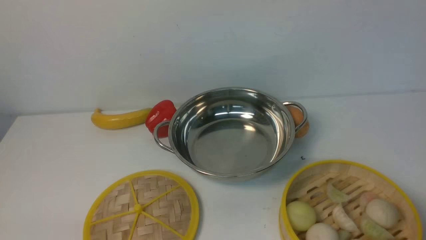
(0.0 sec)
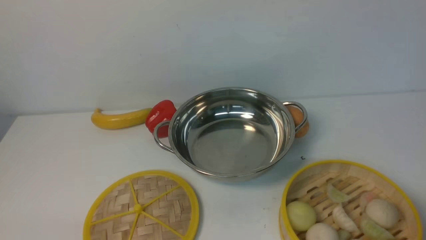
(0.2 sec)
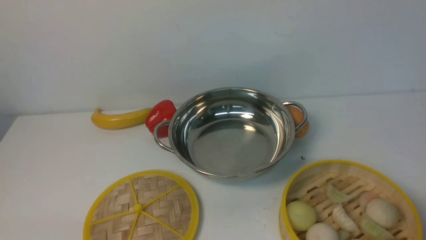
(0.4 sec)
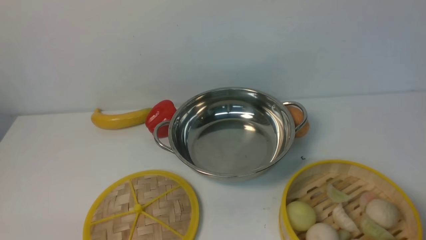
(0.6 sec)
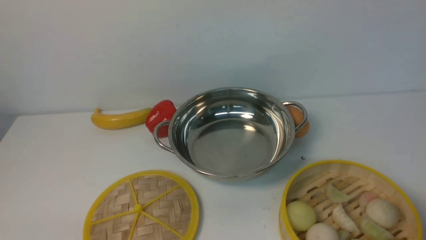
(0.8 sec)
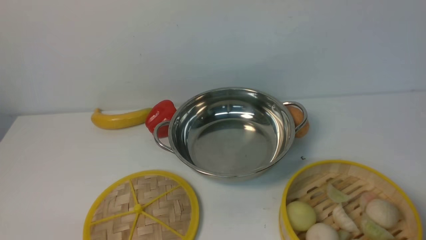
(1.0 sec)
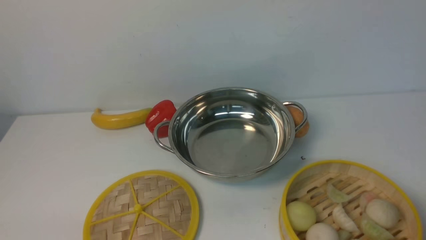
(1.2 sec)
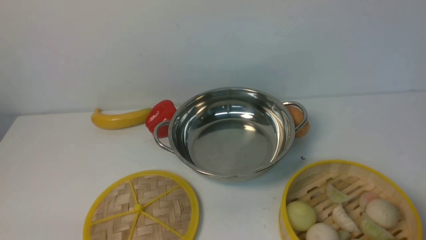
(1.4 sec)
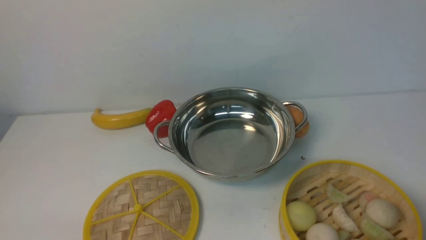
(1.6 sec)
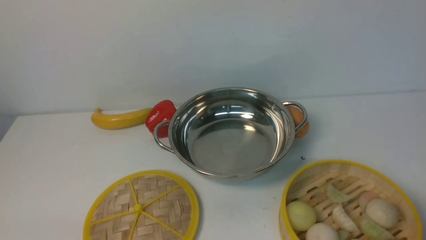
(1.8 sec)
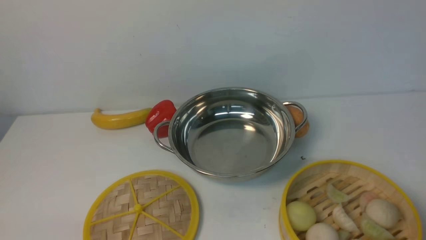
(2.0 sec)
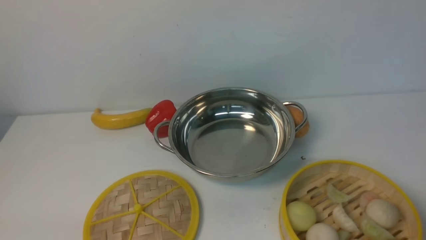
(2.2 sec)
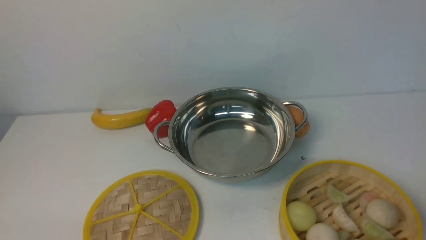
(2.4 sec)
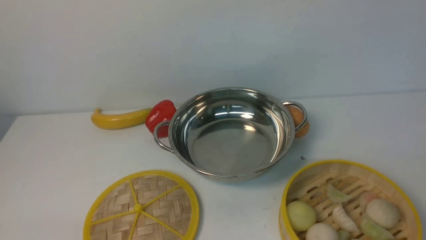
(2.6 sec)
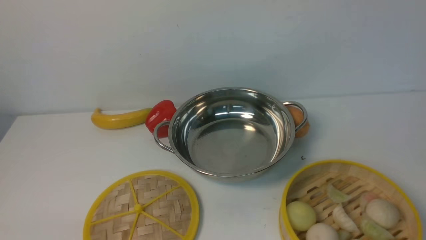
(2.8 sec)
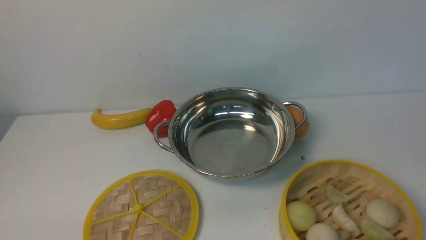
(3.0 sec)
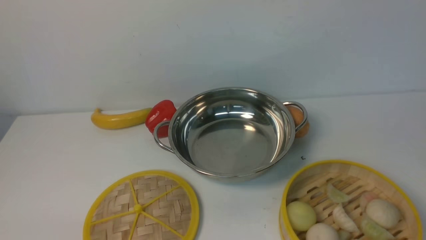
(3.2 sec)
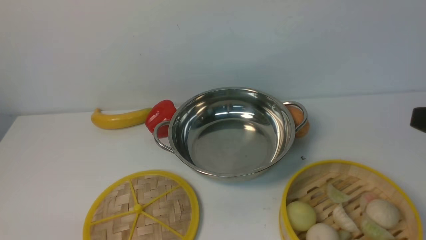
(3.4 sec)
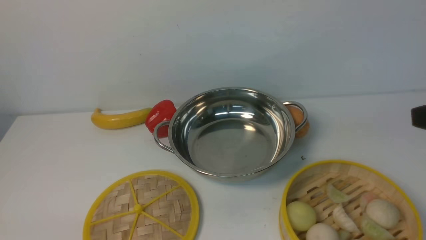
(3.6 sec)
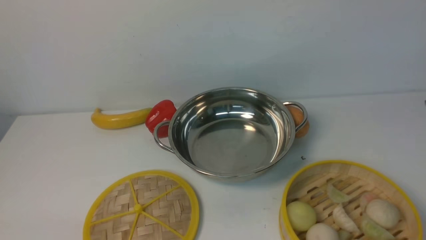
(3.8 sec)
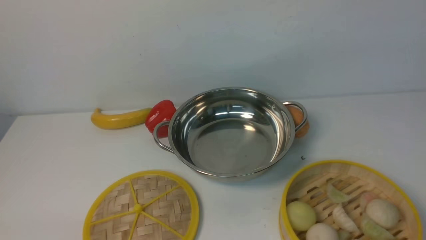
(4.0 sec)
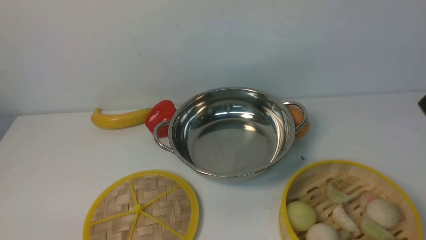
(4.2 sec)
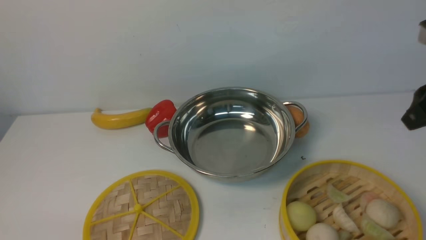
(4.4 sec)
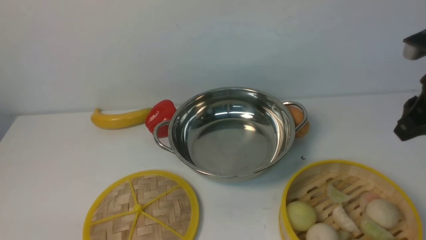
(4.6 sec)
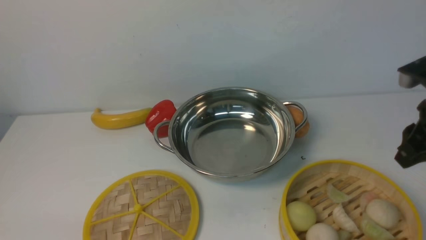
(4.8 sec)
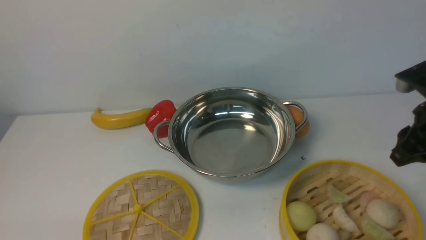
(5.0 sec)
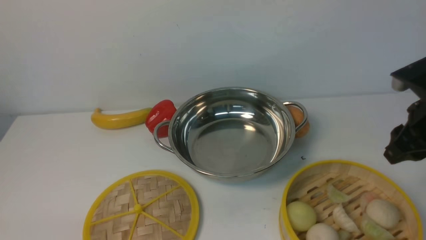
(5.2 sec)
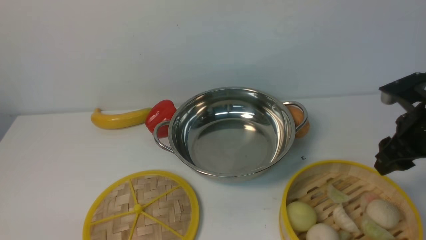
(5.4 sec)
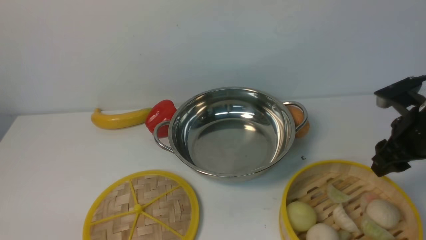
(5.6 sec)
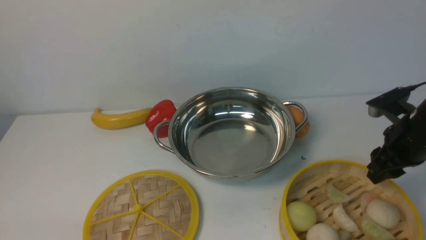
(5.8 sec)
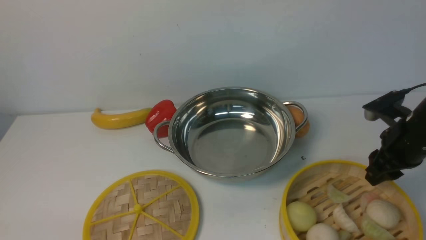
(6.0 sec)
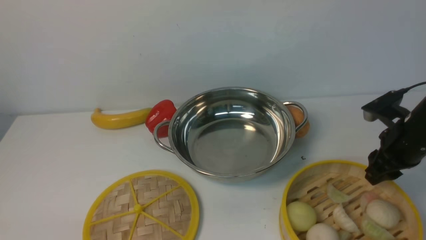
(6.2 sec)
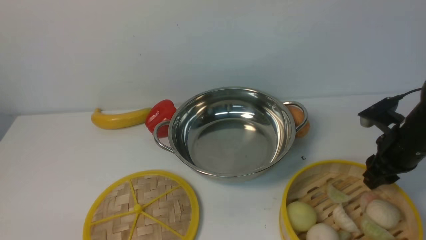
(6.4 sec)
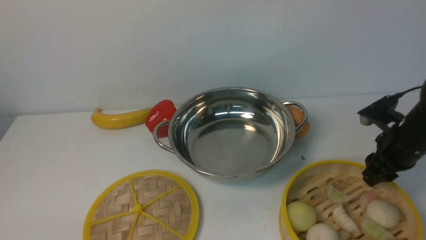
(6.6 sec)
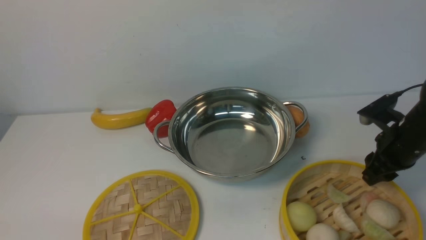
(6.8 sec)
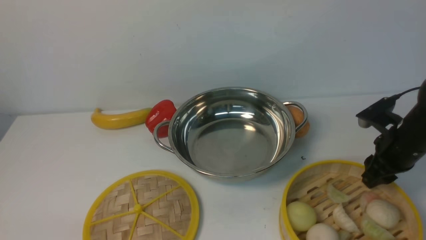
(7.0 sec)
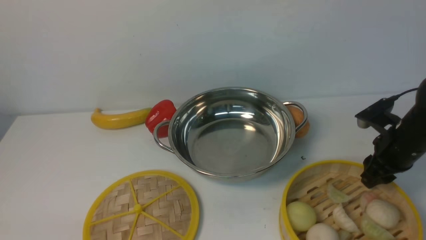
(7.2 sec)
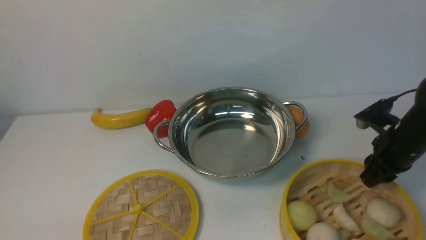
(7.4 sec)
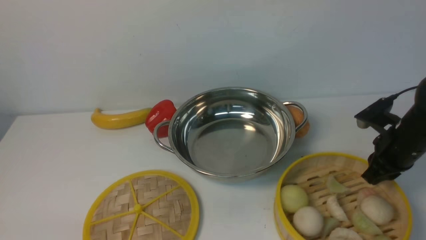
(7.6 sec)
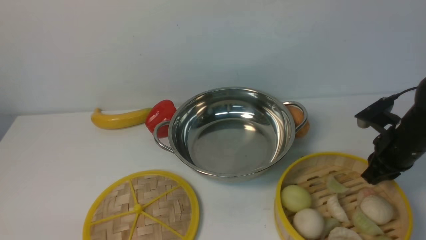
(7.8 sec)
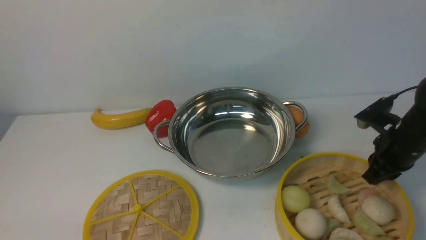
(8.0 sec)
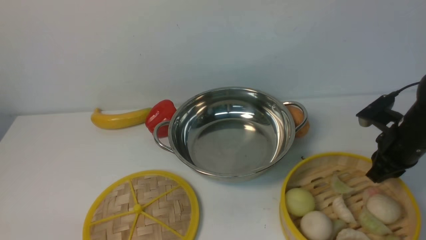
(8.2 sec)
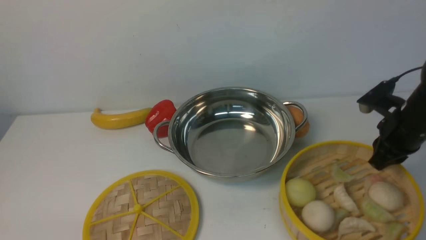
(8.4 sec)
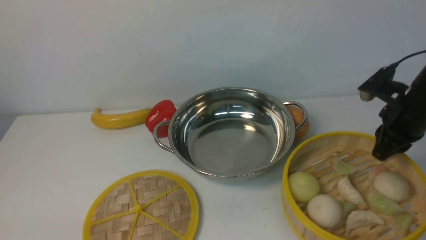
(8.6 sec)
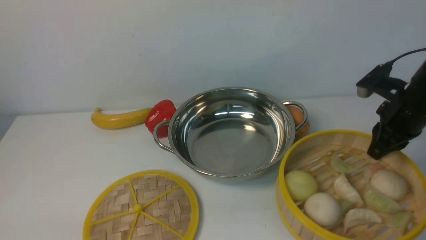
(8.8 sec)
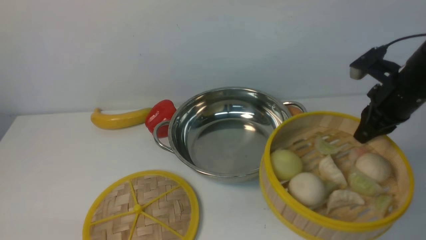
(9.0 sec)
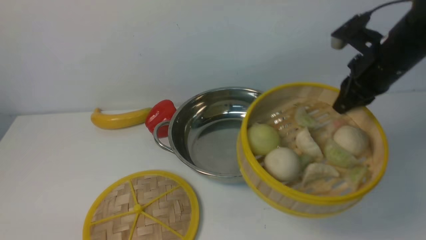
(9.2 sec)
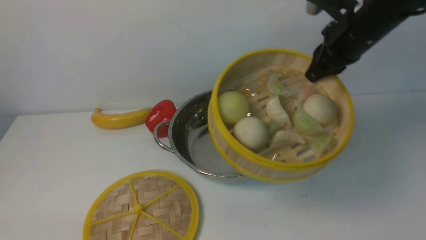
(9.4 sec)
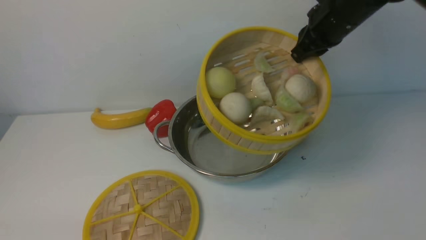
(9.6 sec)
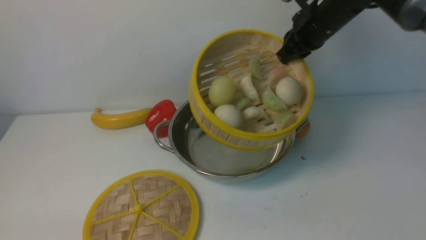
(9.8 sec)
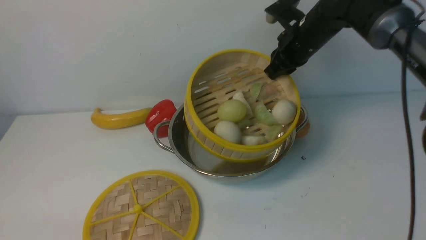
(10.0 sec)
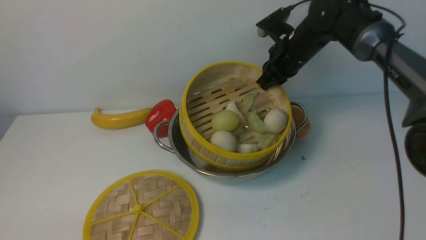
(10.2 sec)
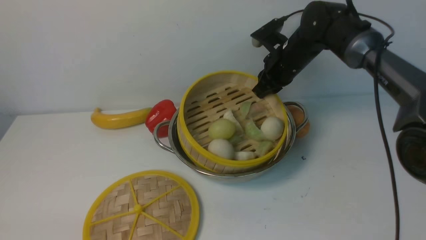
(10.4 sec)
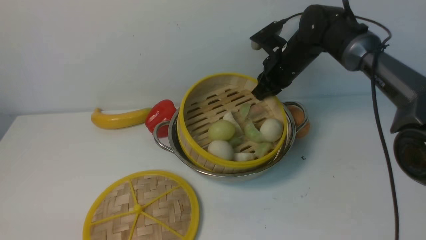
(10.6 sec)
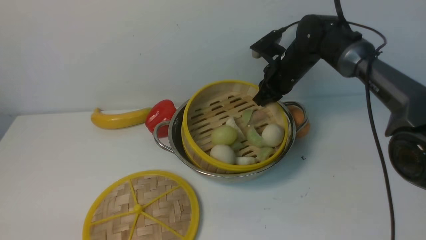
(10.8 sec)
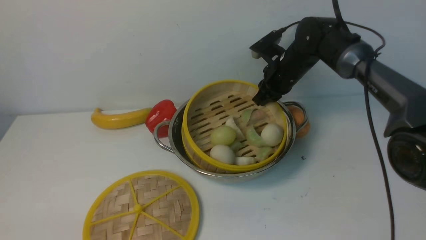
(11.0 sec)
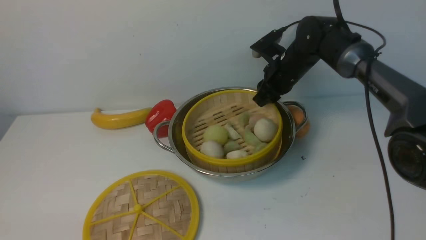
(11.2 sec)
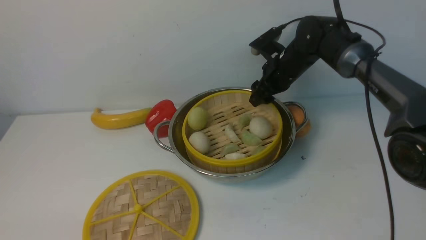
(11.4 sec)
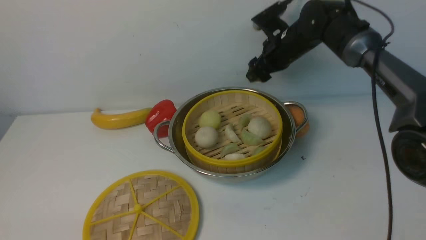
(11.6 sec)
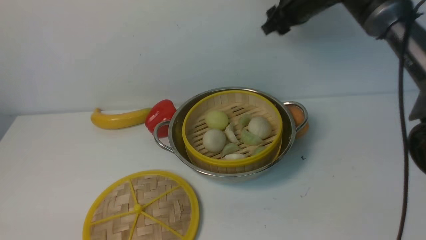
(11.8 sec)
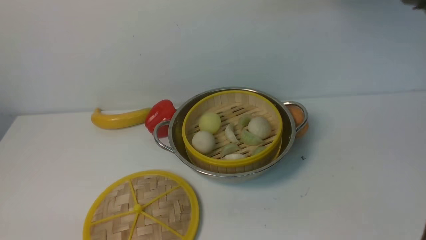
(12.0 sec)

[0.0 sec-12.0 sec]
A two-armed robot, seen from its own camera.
Task of the whole recording: place the steamer in the pot on the white table, and put the lid on the steamer.
Step, 0.0 sec to 8.4 sec: use the right arm to lift the steamer closest to it.
Step, 8.6 sec to 11.4 sec: use the right arm to put the steamer into the iron steamer pot in the middle.
0.0 sec to 1.6 sec: Neither gripper changes place.
3.0 sec to 4.4 sec: The right gripper heads forward, covering roughly 20 cm.
4.4 sec to 6.0 sec: The right gripper shifts some 15 cm downward.
6.0 sec to 7.6 sec: The right gripper closes its fingers.
7.6 sec to 9.0 sec: The right gripper goes roughly 10 cm upward.
9.0 sec to 10.4 sec: The right gripper is displaced to the left and forward by about 20 cm.
10.4 sec to 12.0 sec: The right gripper travels upward by roughly 20 cm, and opens and closes again.

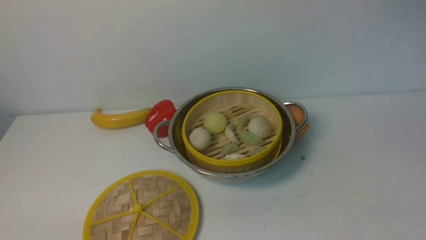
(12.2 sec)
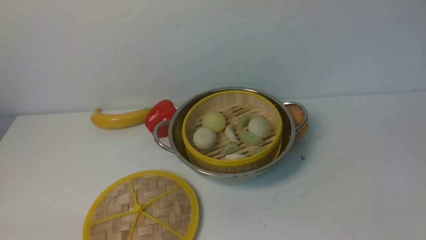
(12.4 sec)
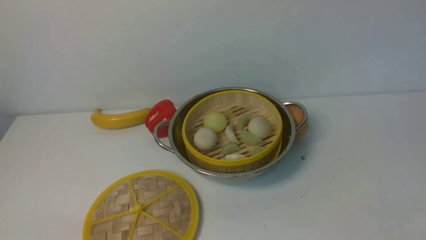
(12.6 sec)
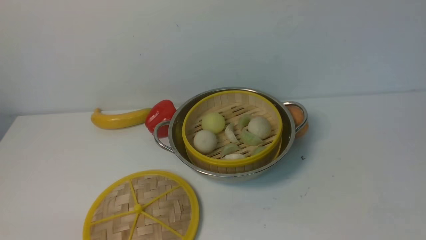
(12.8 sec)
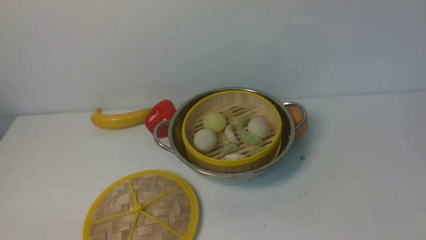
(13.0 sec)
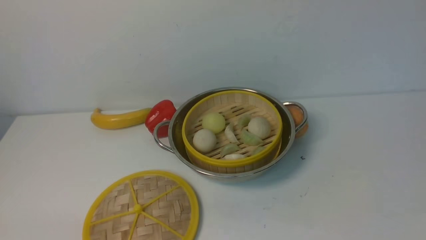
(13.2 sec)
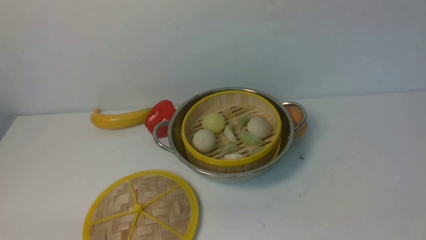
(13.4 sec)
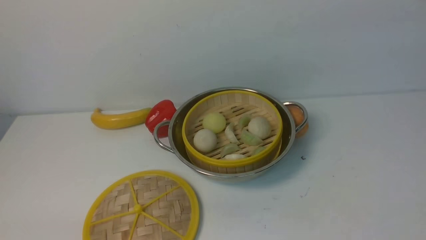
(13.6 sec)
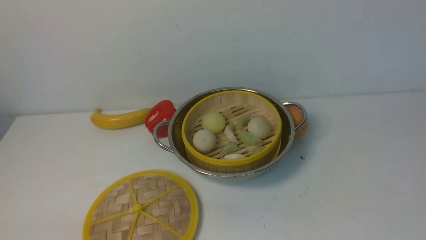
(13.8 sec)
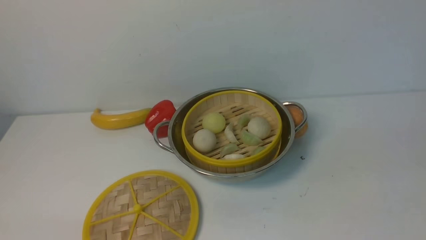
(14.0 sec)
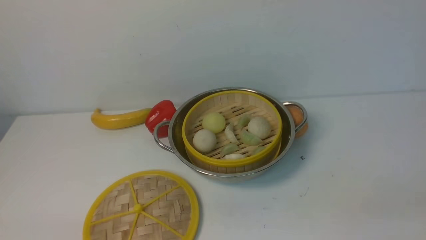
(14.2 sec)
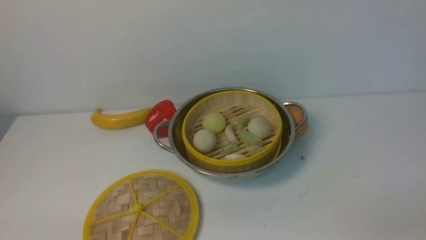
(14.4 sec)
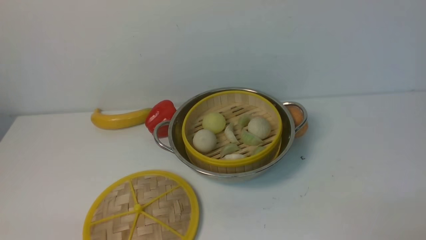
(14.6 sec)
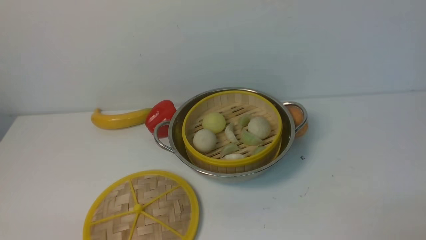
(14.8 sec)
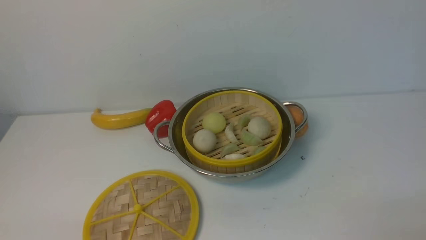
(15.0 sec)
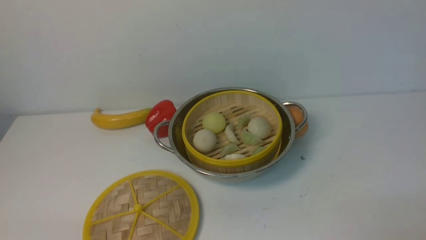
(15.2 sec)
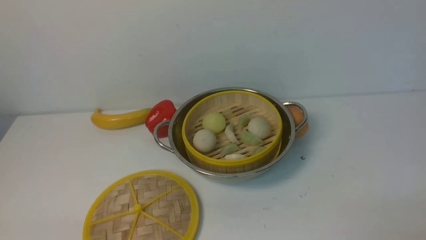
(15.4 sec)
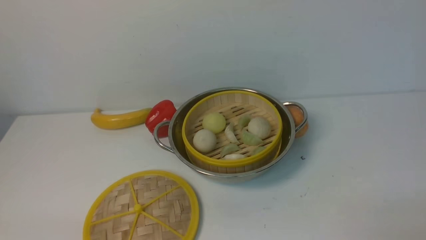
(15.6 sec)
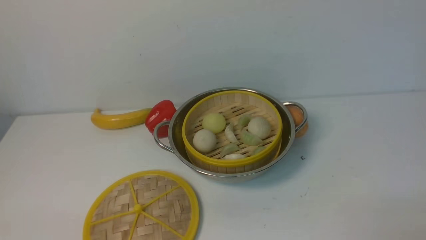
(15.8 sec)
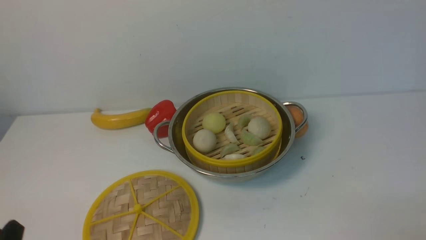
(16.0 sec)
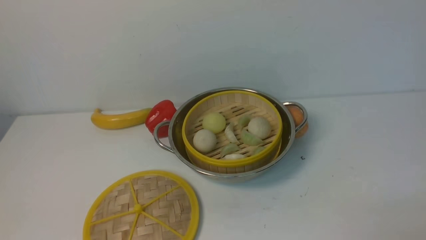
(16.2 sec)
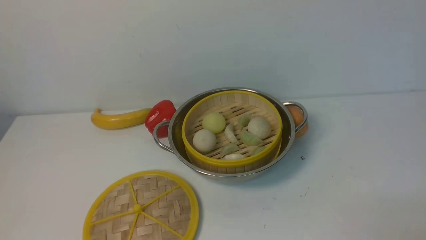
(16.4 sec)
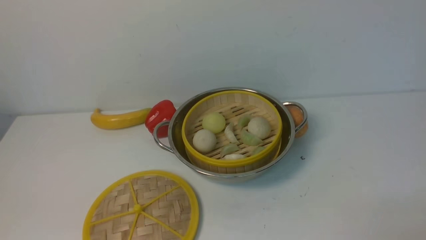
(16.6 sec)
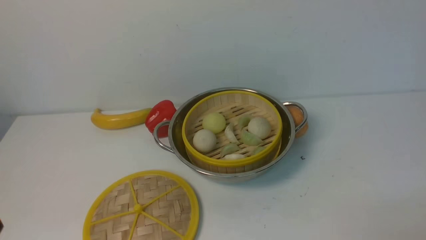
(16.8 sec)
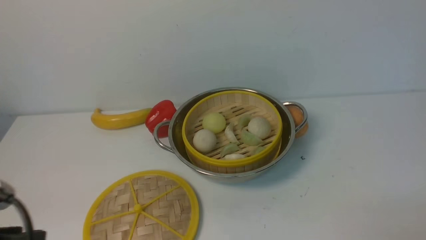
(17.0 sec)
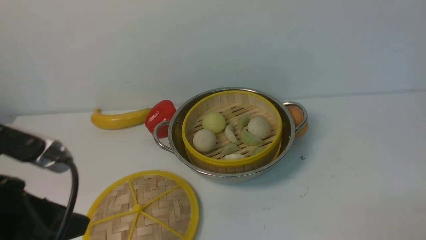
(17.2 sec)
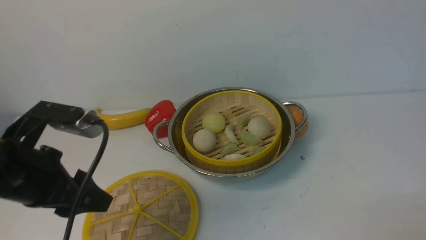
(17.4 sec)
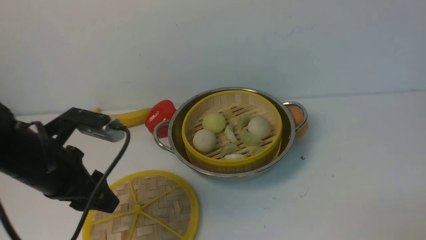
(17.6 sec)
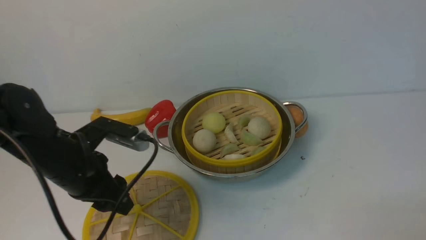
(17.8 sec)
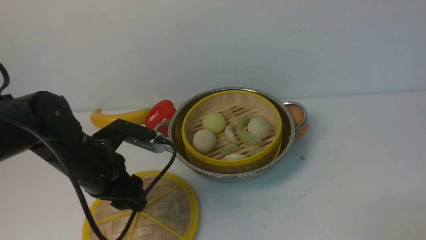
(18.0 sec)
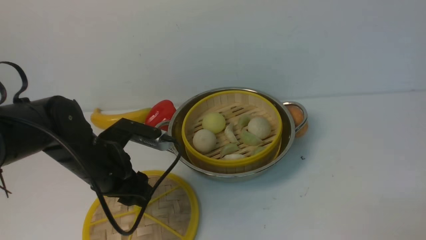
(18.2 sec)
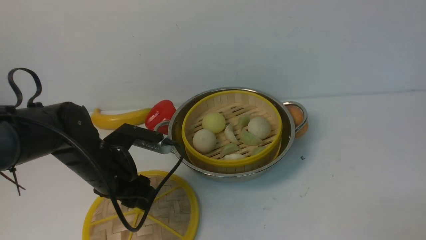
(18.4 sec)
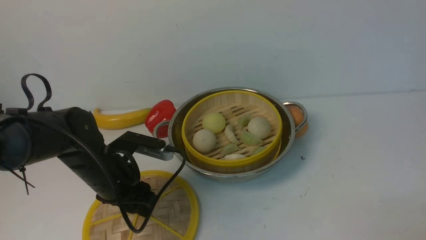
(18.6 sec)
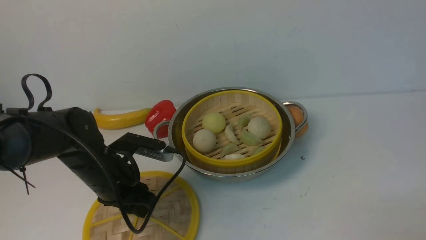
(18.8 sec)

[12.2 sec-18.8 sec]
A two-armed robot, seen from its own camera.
Task of the whole recording: place the steamer in the pot on the white table, and put the lid on the steamer.
15.4 sec to 17.2 sec: The left gripper shifts some 15 cm upward and forward.
17.2 sec to 18.8 sec: The left gripper shifts some 20 cm forward and downward.
